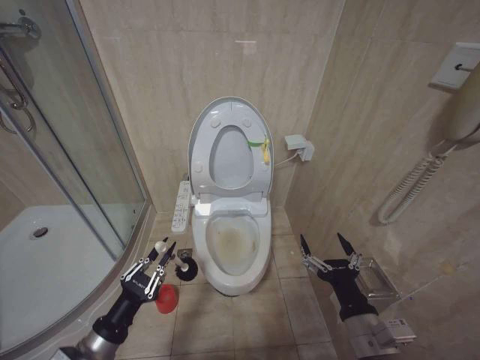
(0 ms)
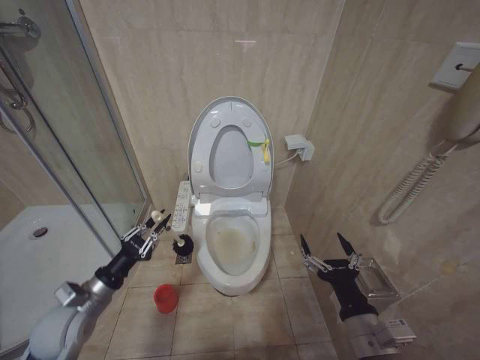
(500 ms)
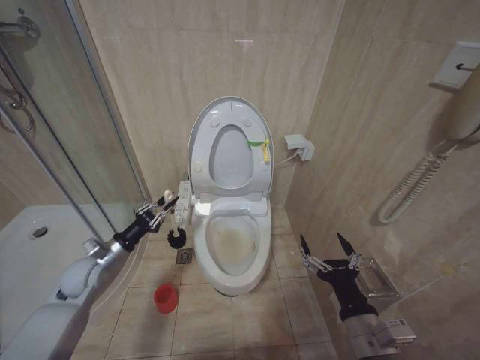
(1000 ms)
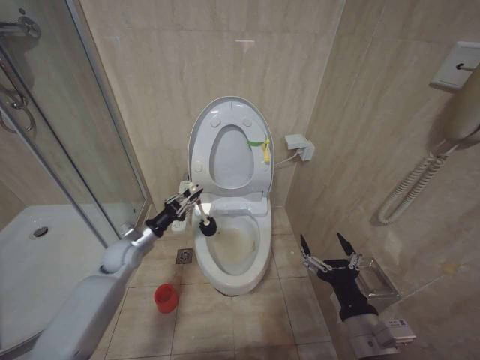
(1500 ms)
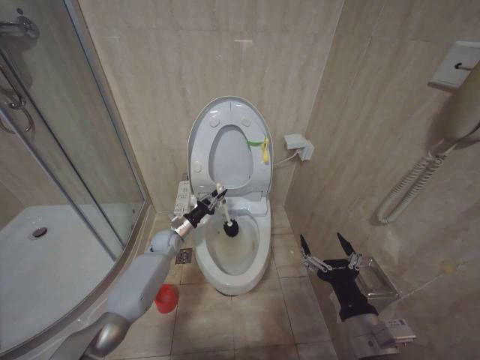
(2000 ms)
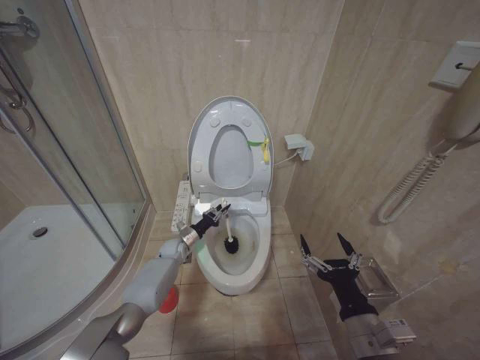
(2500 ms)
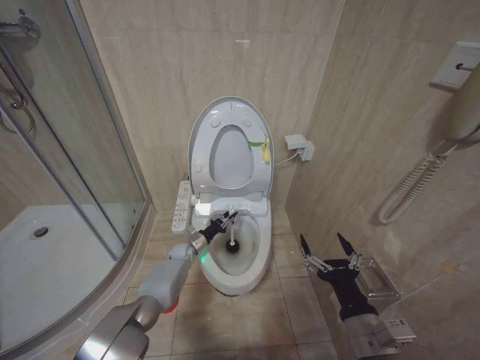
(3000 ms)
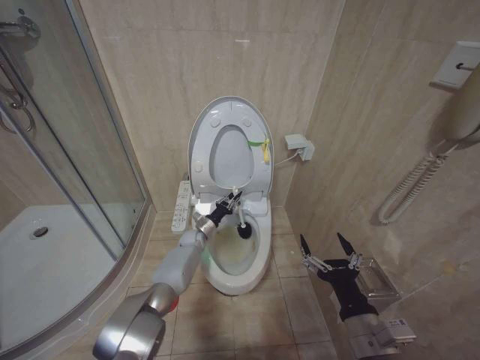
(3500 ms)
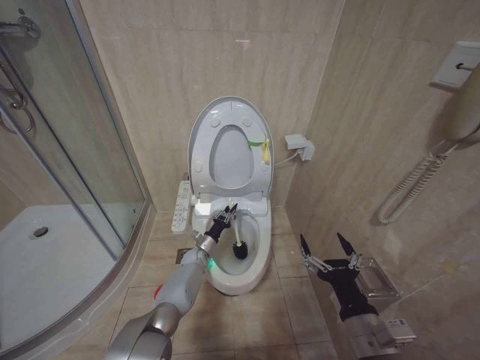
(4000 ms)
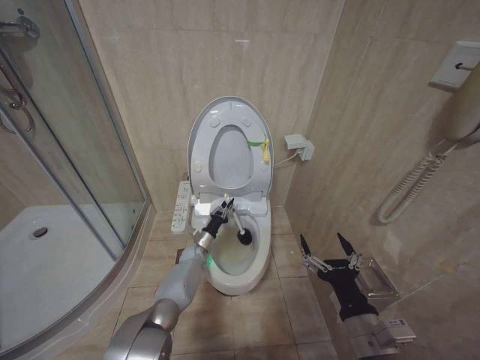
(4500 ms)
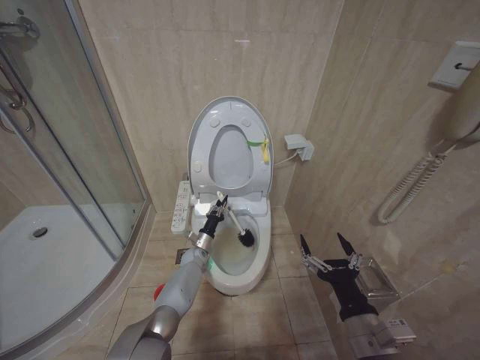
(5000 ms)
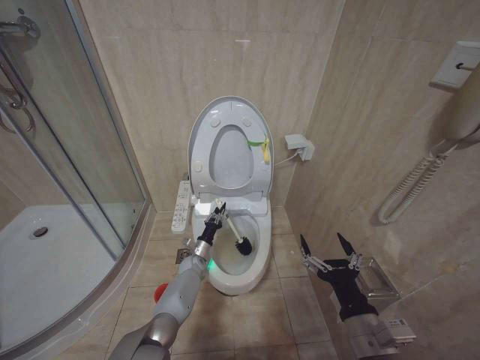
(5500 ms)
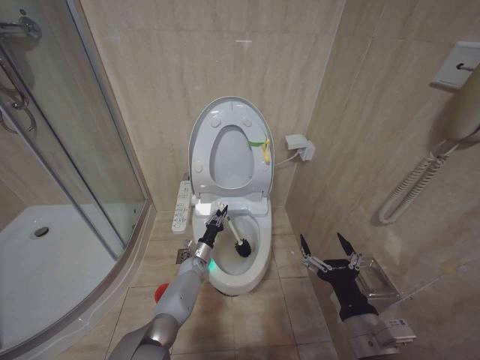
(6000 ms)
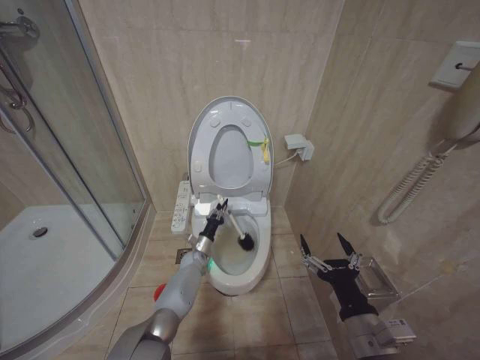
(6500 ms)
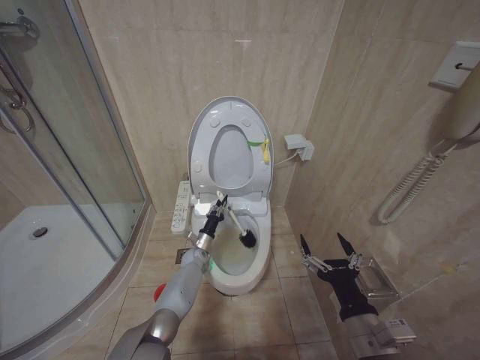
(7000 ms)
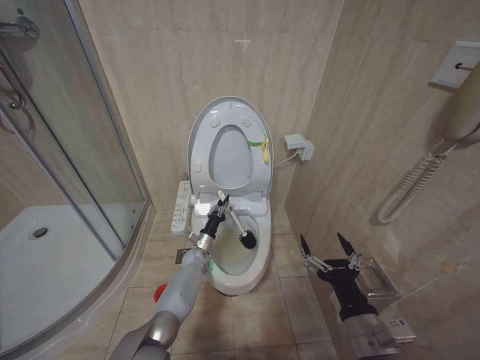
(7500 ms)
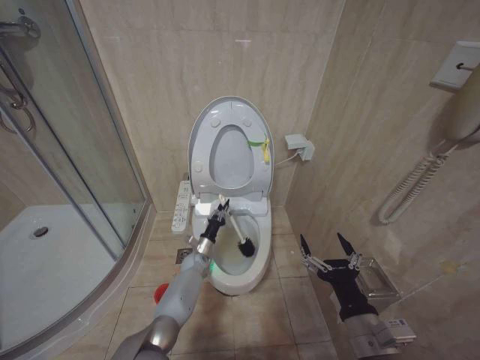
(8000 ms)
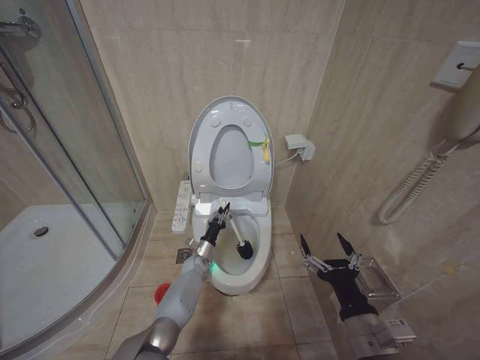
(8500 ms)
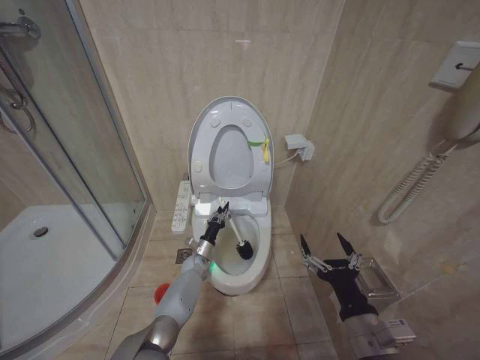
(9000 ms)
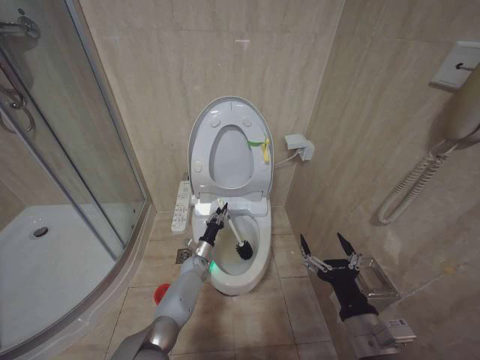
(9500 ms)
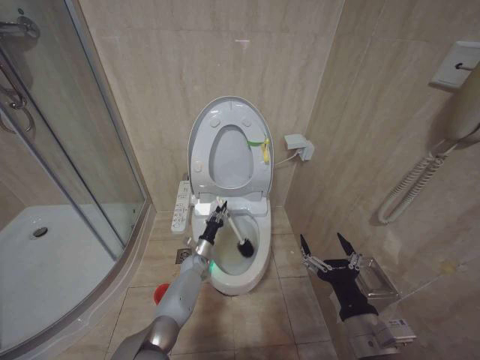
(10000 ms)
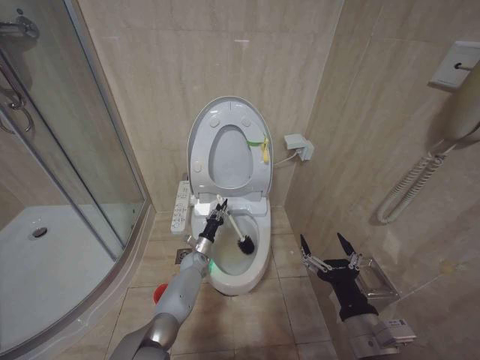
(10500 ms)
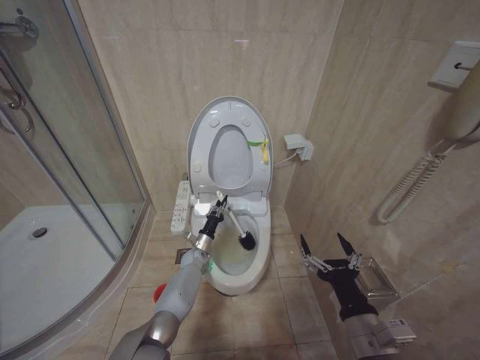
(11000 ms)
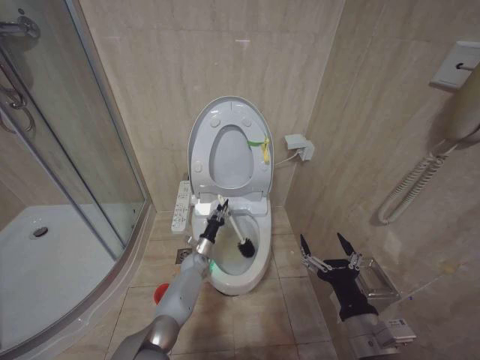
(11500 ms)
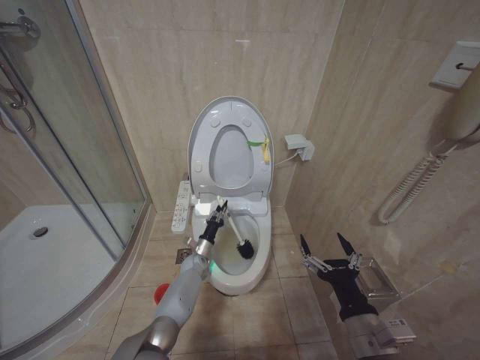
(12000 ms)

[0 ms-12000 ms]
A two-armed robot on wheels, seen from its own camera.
Task of the whole recording: Open the toilet lid, clean the toilet bowl with a toilet brush, close the toilet lid, and flush.
0 ms to 2000 ms: The left gripper moves forward, roughly 35 cm.
2000 ms to 4000 ms: The left gripper swings up and down, some 10 cm each way, with 2 reversals.
4000 ms to 8000 ms: The grippers move only a little.

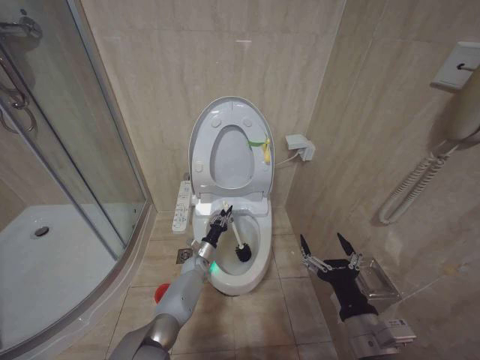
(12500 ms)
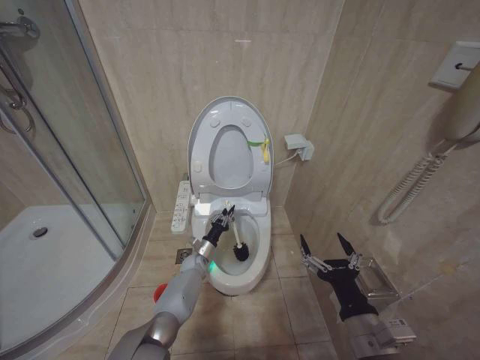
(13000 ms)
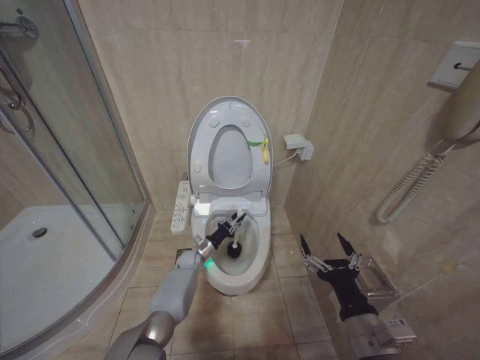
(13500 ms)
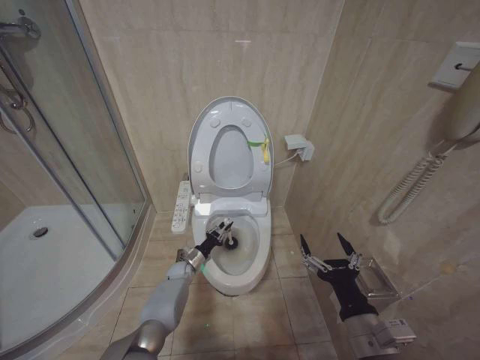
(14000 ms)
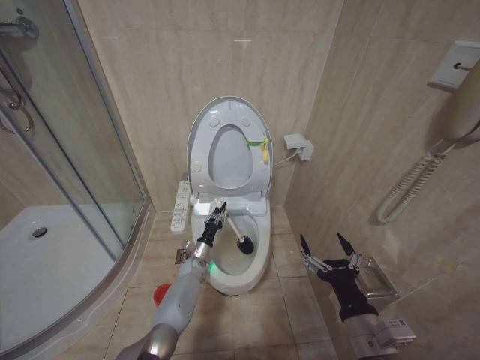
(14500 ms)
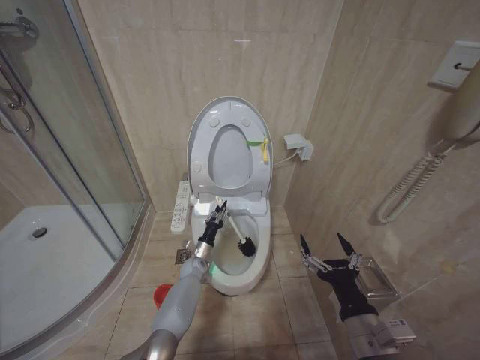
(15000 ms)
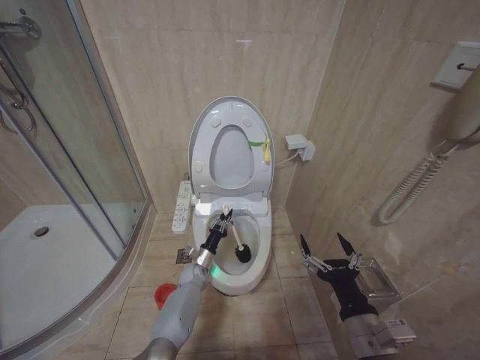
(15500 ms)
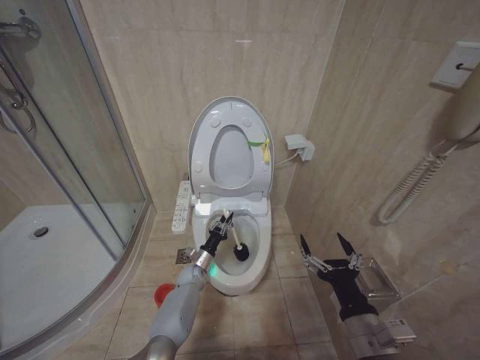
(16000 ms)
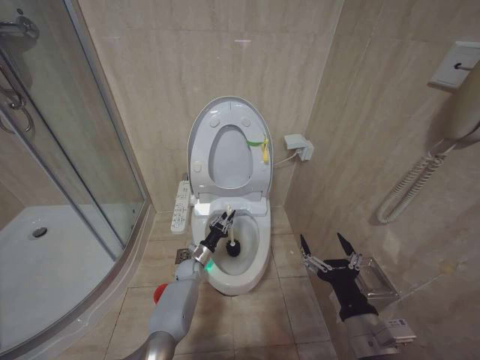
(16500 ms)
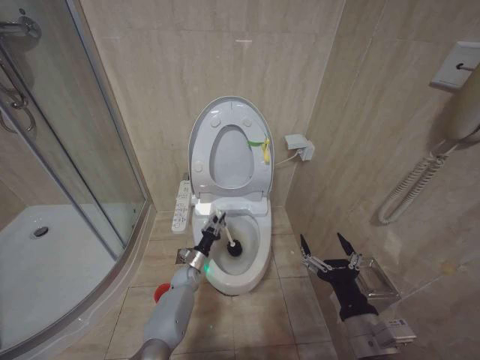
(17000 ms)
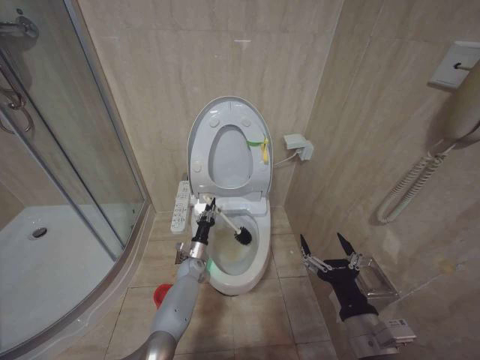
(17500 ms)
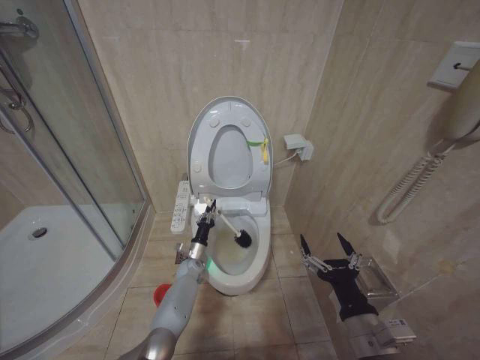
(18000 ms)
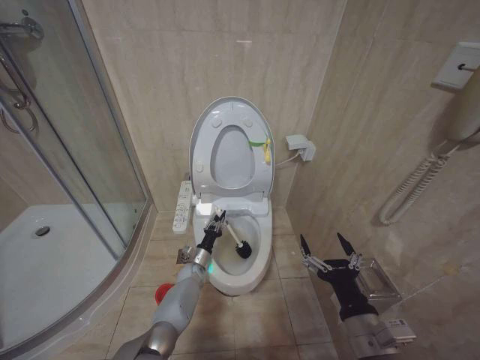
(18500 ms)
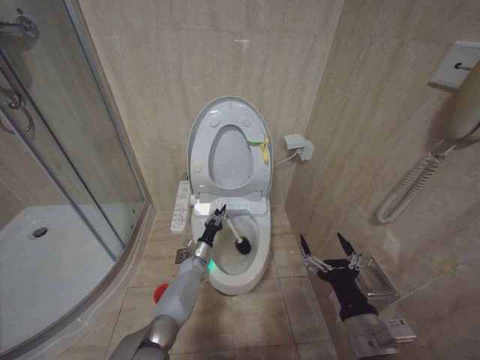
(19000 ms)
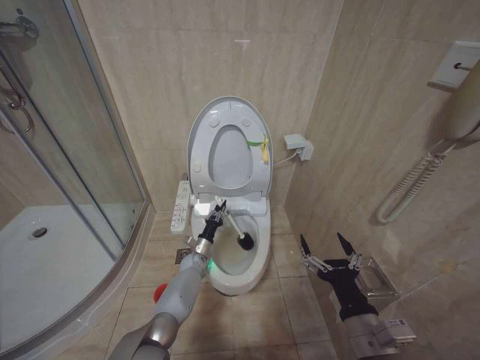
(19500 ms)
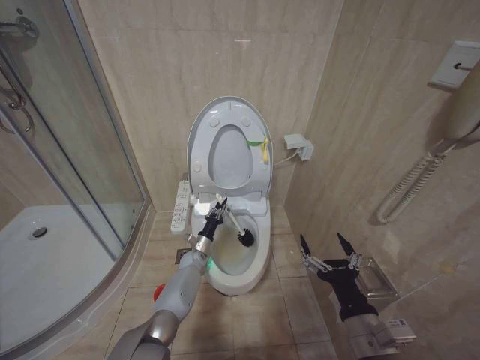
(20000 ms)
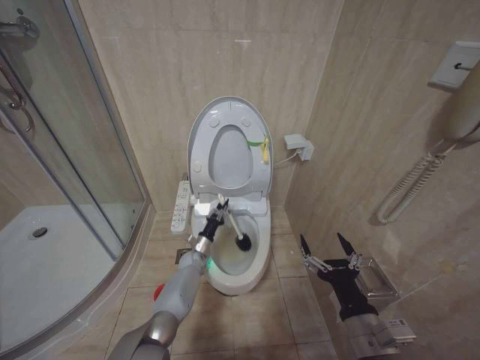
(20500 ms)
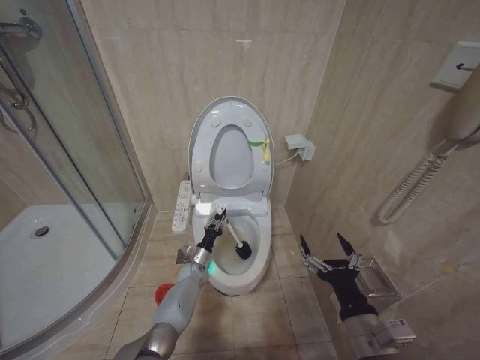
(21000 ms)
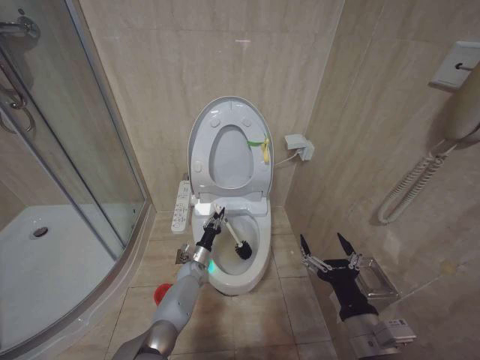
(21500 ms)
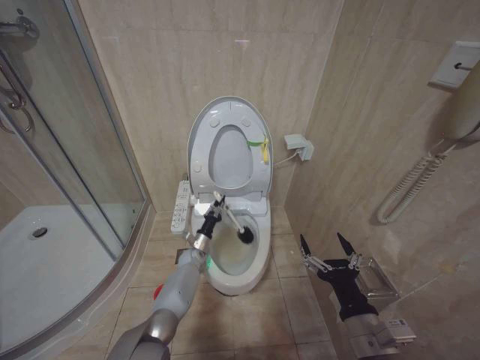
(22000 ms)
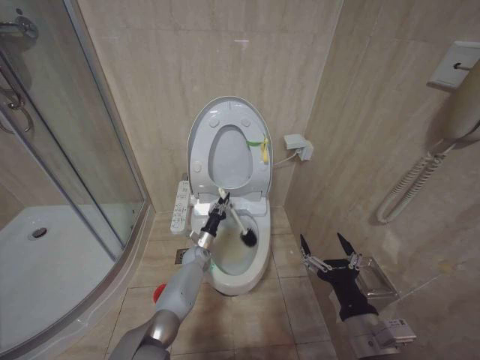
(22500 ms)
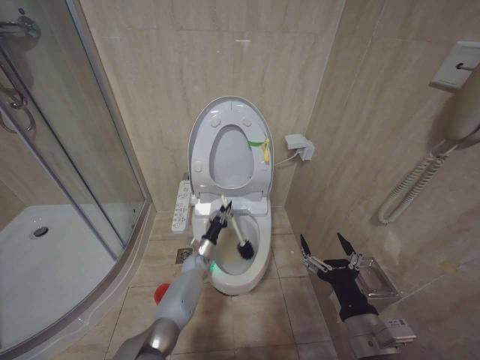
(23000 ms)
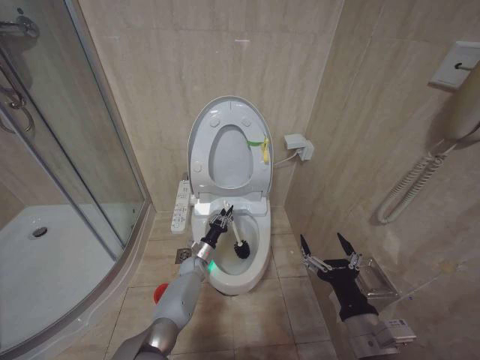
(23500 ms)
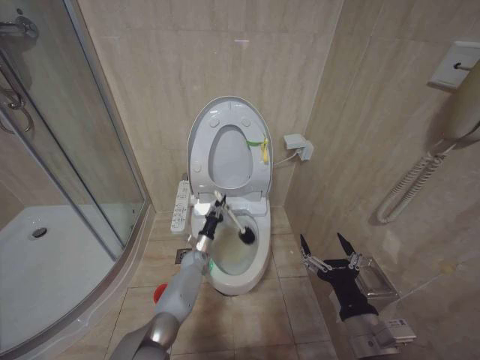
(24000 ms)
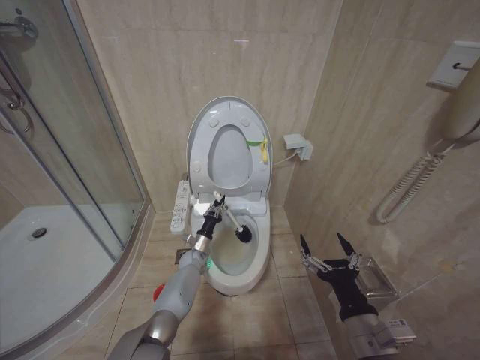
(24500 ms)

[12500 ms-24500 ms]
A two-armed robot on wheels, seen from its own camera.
Task of the whole recording: Open the toilet lid, clean the toilet bowl with a toilet brush, close the toilet lid, and flush.
18500 ms to 20500 ms: The grippers move only a little.

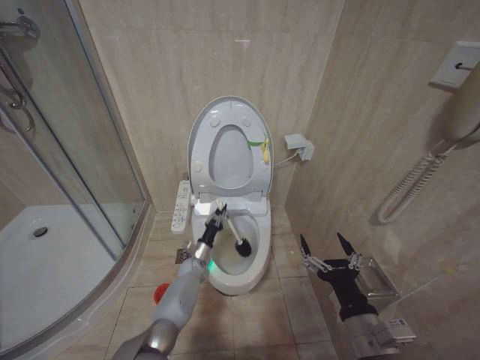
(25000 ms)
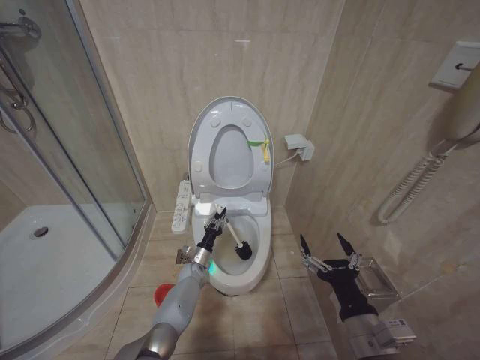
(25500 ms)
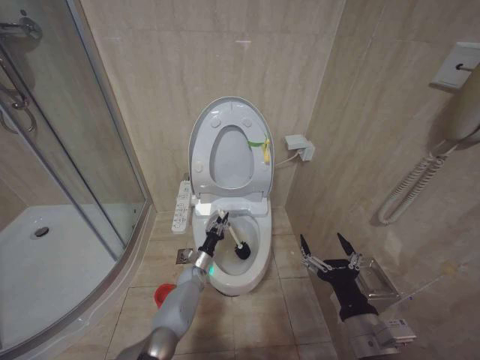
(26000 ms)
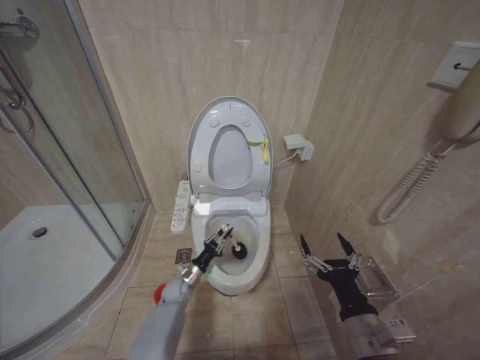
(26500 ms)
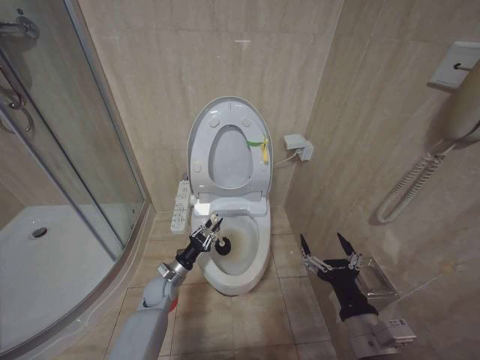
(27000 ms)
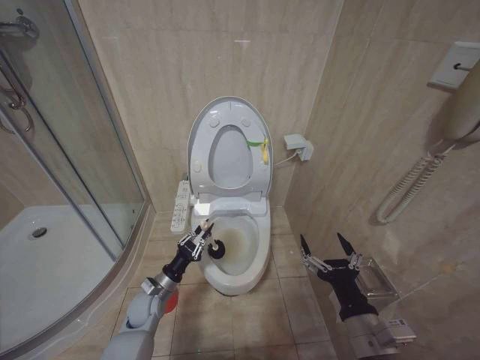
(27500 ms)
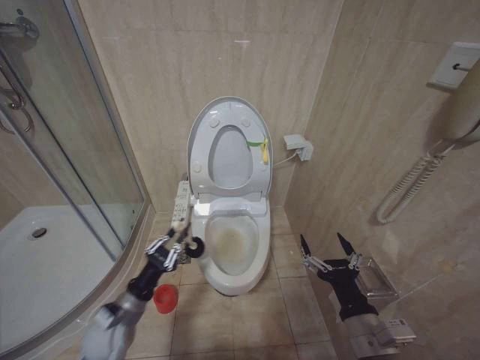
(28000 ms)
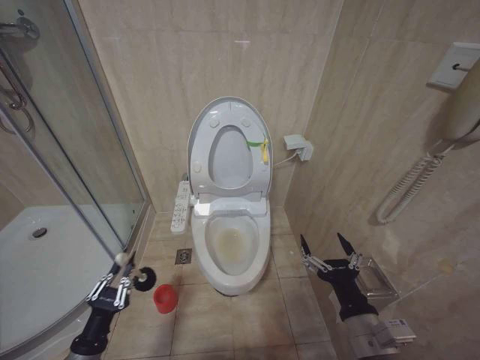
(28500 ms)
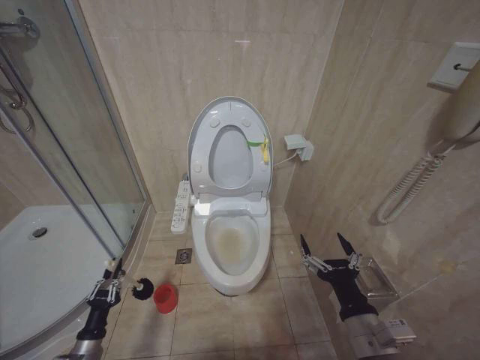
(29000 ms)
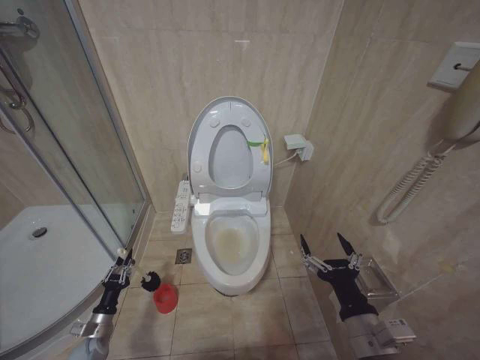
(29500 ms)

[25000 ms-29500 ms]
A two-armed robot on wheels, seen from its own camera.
Task of the whole recording: Open the toilet lid, clean the toilet bowl with a toilet brush, close the toilet lid, and flush.
25000 ms to 27000 ms: The left gripper moves backward, to the left and upward, roughly 15 cm.
27000 ms to 29500 ms: The left gripper goes some 25 cm to the left, backward and downward.
